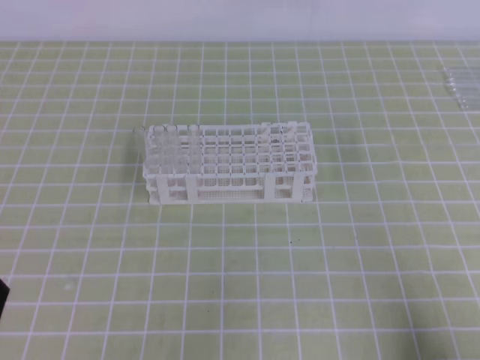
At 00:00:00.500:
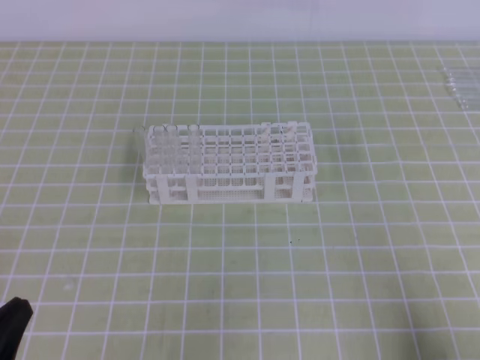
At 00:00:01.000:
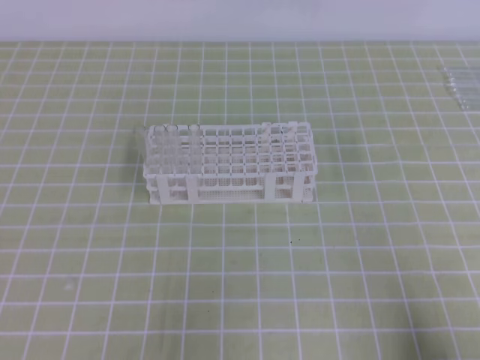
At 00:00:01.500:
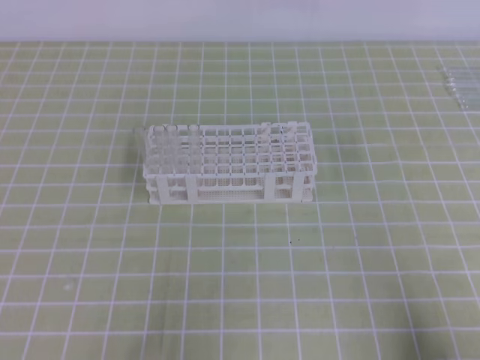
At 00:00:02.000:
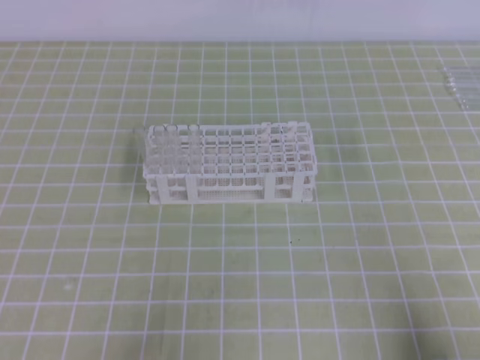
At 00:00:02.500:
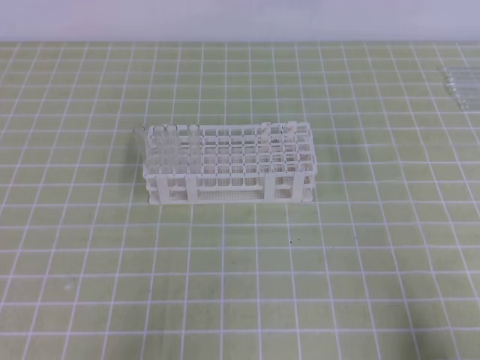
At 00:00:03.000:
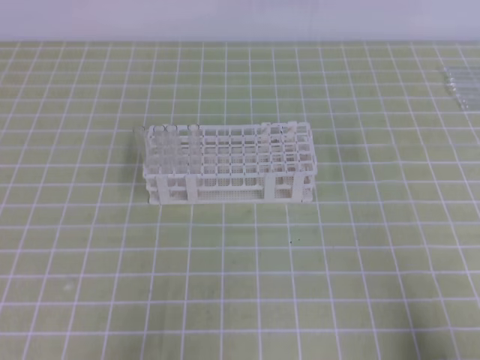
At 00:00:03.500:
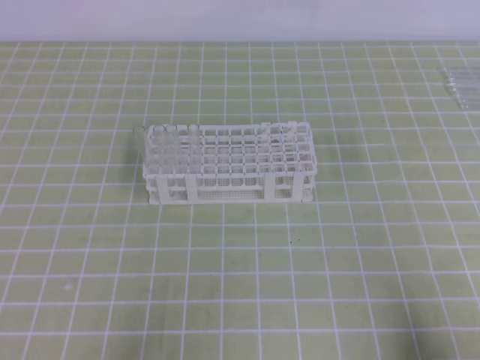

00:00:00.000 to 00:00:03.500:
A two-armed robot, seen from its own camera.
00:00:02.000 to 00:00:03.500: Both grippers stay put.
